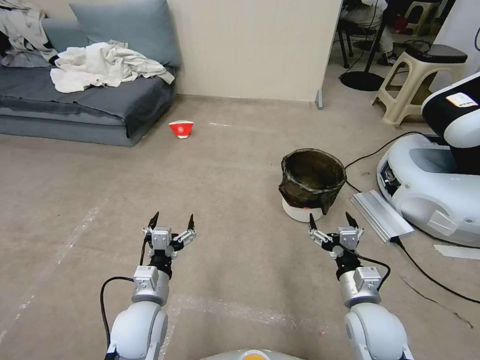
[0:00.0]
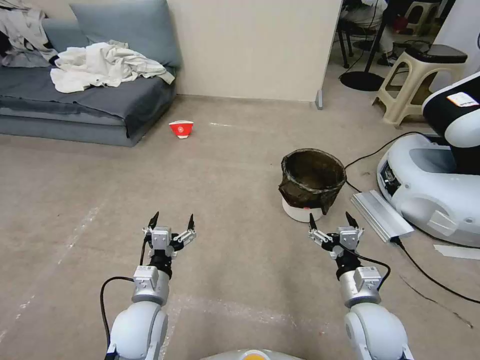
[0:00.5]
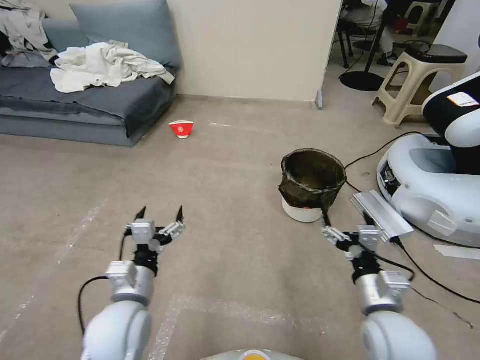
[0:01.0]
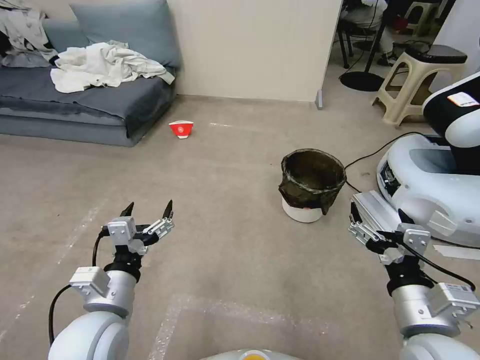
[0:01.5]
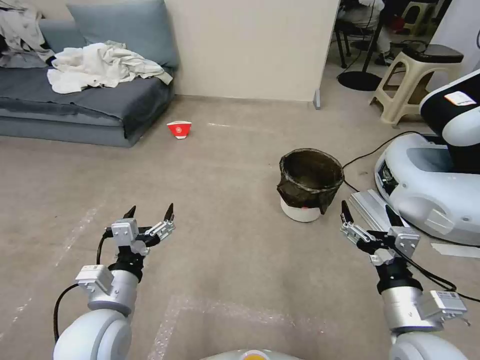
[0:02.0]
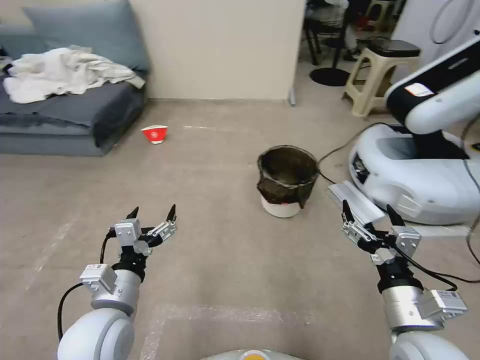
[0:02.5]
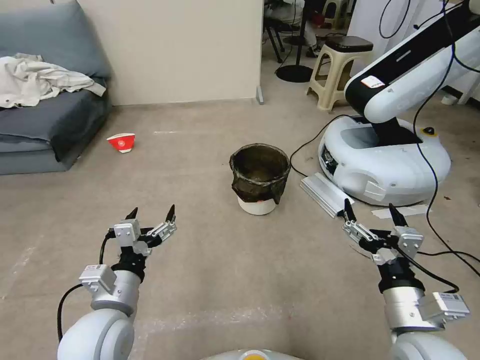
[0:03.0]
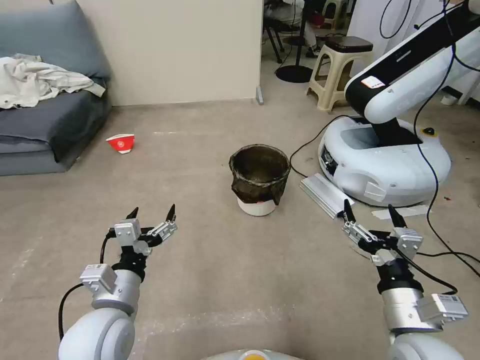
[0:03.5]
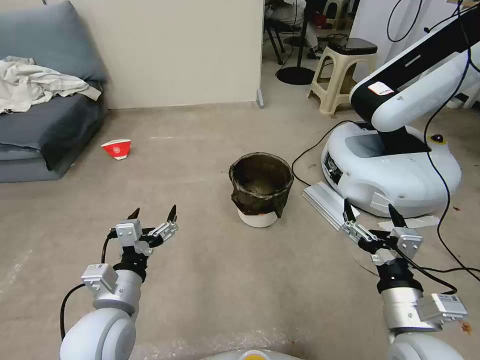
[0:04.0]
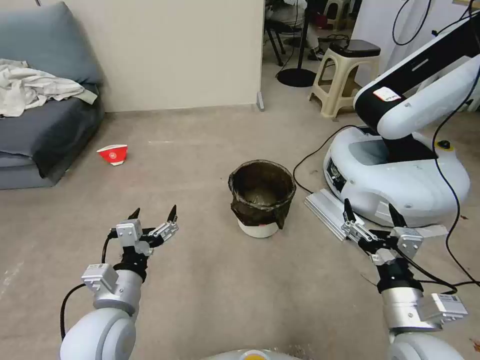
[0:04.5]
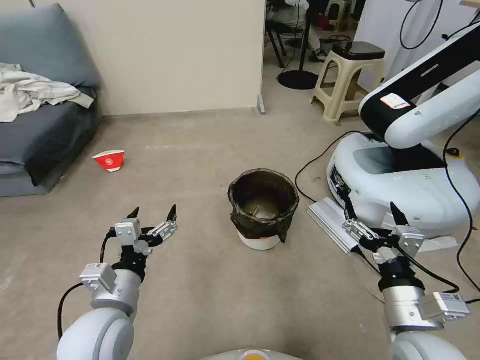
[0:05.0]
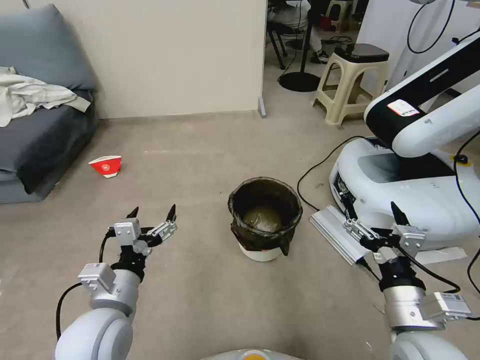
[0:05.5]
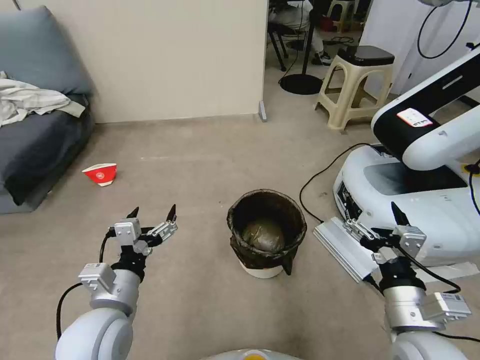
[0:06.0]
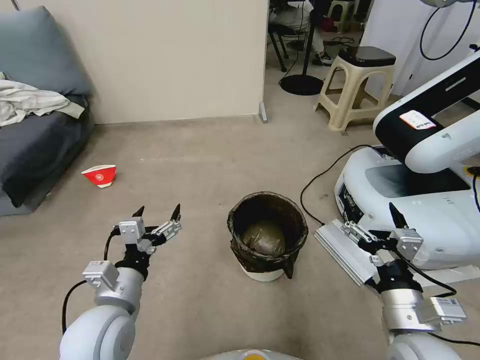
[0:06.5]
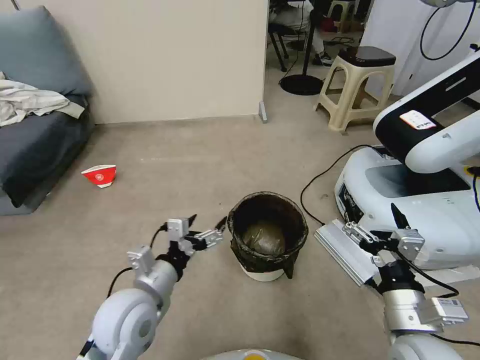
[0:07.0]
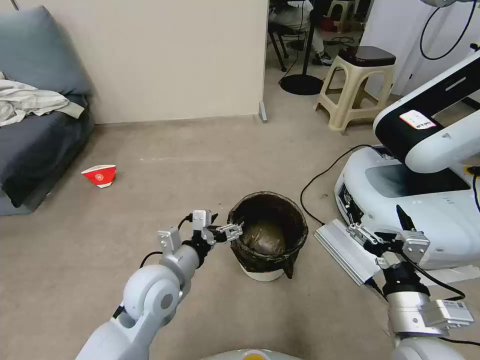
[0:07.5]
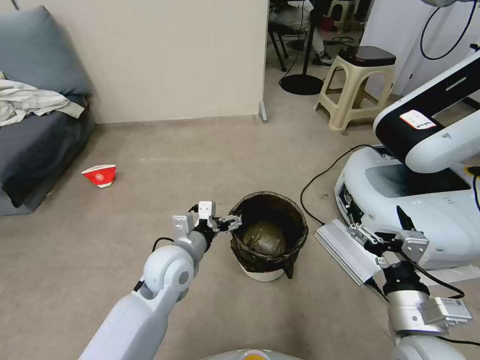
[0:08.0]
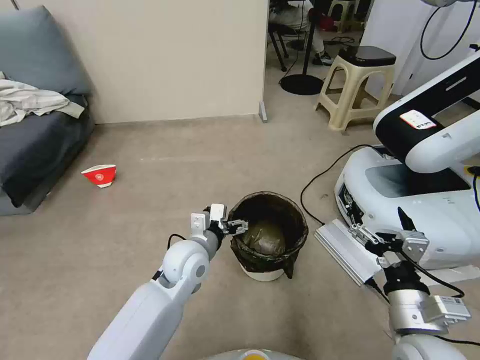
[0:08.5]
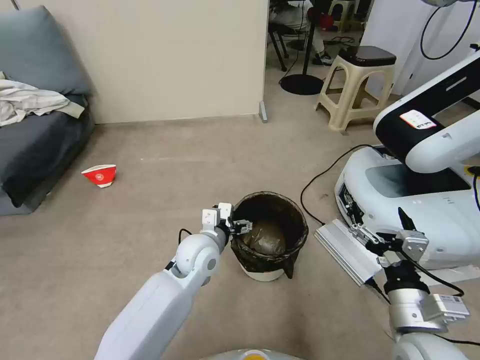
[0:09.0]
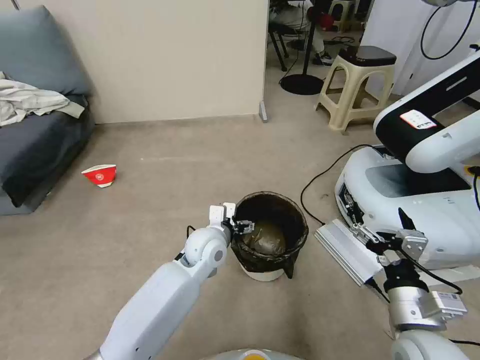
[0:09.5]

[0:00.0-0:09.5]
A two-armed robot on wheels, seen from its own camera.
Task of the whole recording: Pick up the trash can from the floor.
0:05.5 to 0:07.5: The left gripper is displaced forward and to the right by roughly 10 cm.
0:07.5 to 0:09.5: The left gripper moves forward and to the right, about 15 cm.

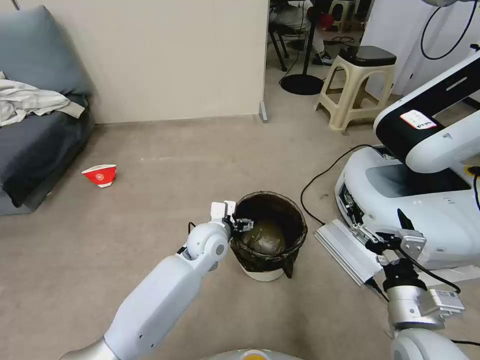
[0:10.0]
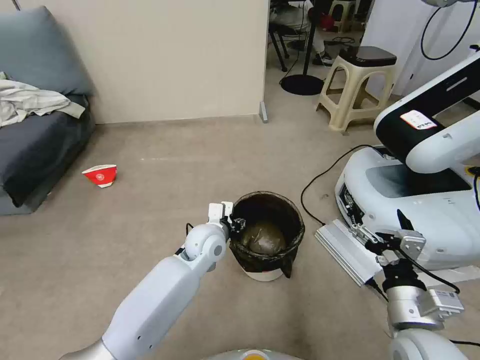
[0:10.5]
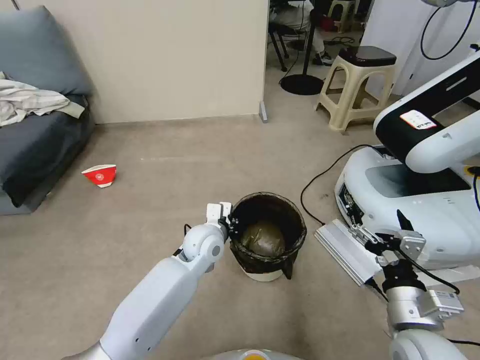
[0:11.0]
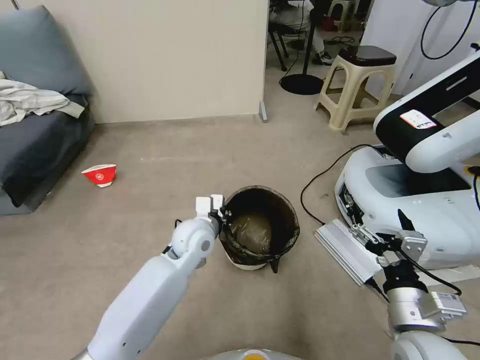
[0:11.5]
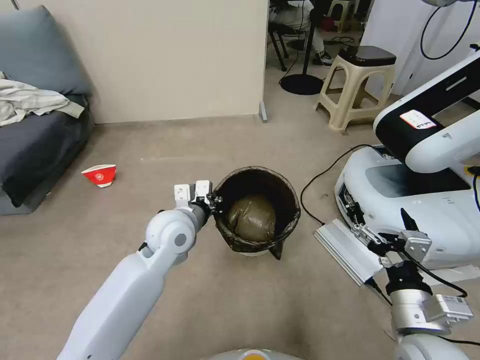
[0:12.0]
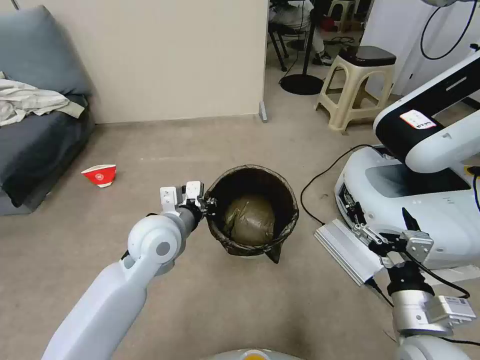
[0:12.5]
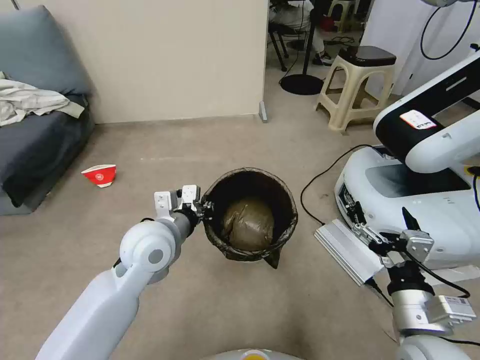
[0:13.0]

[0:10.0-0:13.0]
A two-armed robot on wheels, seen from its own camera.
Task of the whole recording: Pick up the trash can from the floor.
0:10.0 to 0:11.5: The left gripper closes.
0:11.5 to 0:13.0: The left gripper shifts approximately 10 cm upward, backward and to the left.
